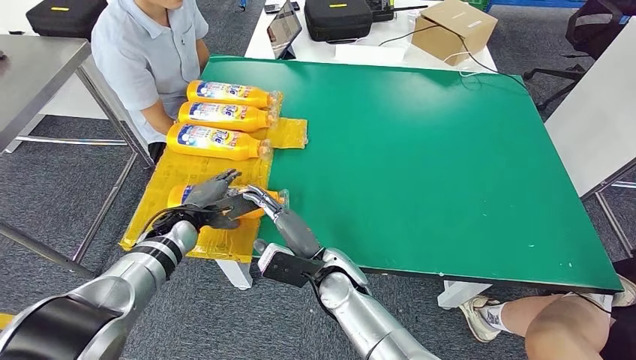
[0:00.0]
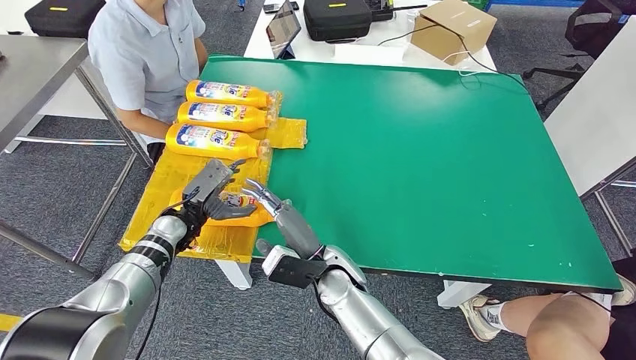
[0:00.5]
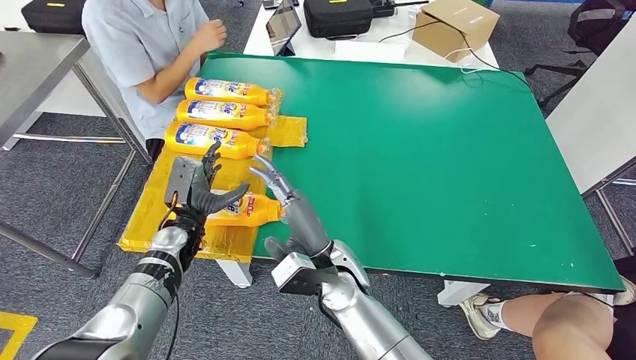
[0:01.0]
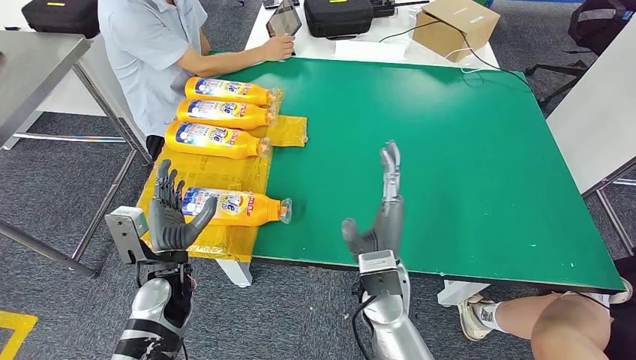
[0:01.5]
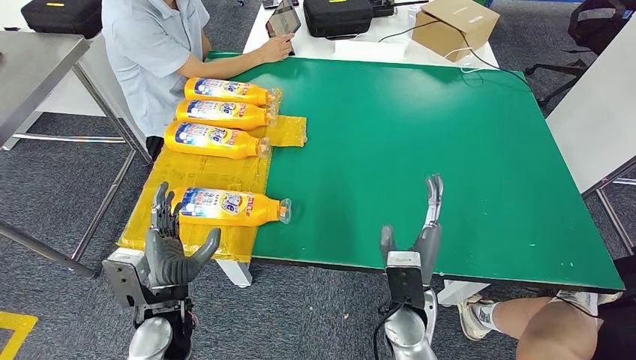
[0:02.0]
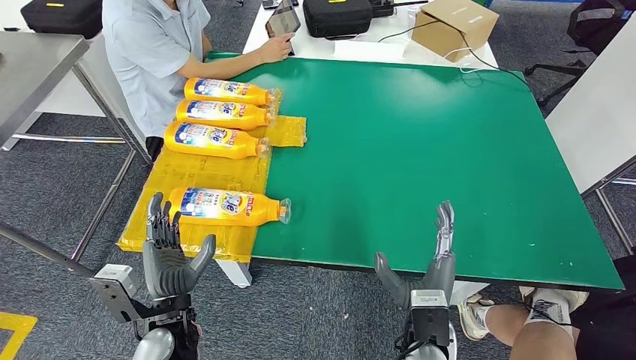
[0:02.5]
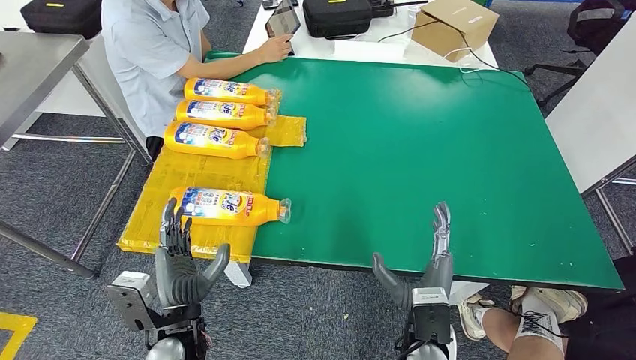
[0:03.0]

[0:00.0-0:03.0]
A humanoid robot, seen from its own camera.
Step, 0:00.0 to 0:02.5: Flip the fast-moving consumer goods bottle to the front side.
0:01.5 to 0:03.0: The left hand goes approximately 10 cm backward. Meanwhile the right hand is displaced to the right, backward and downward by some 10 cm.
